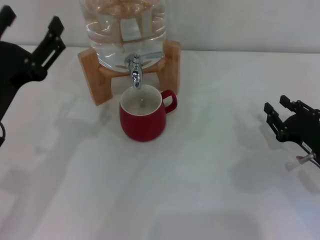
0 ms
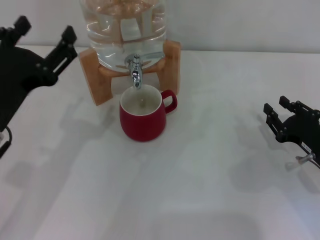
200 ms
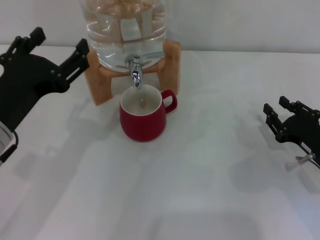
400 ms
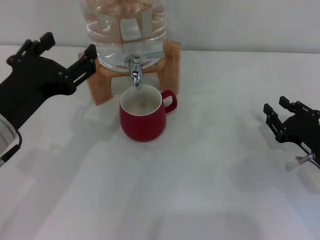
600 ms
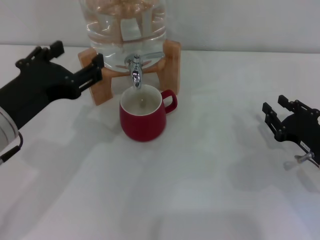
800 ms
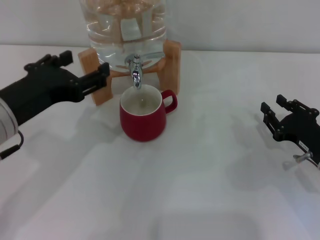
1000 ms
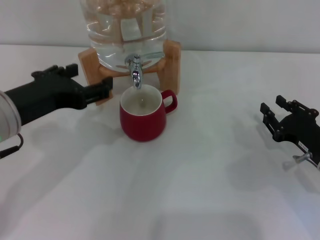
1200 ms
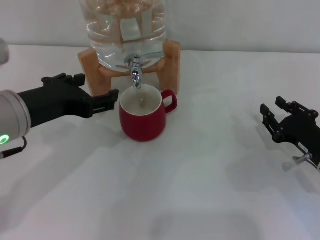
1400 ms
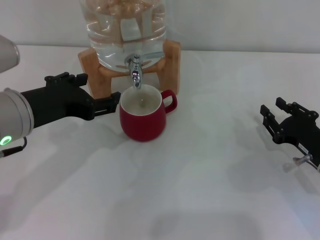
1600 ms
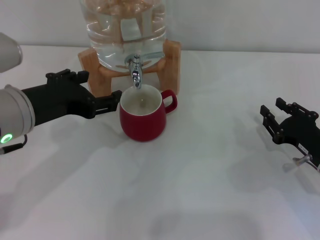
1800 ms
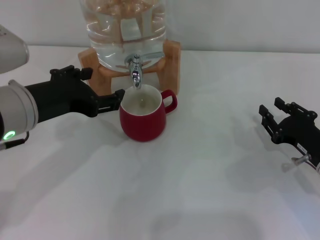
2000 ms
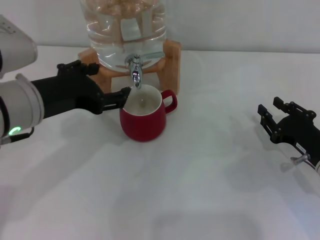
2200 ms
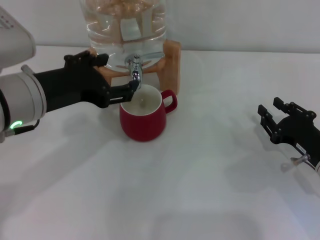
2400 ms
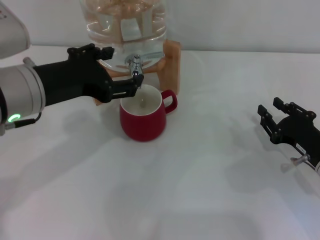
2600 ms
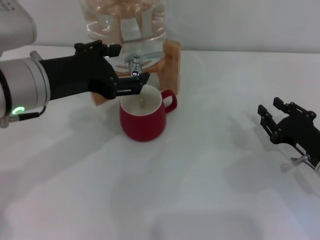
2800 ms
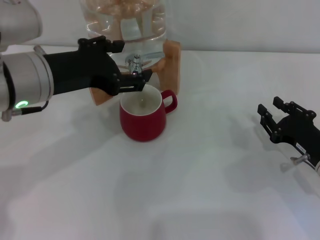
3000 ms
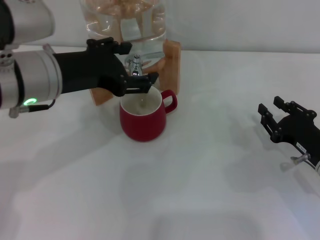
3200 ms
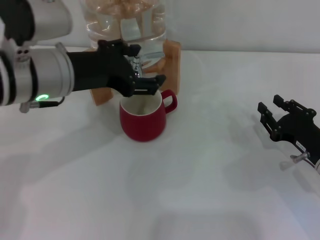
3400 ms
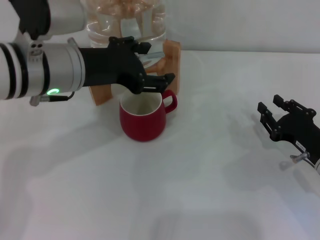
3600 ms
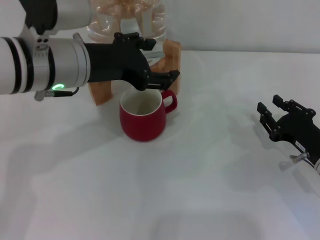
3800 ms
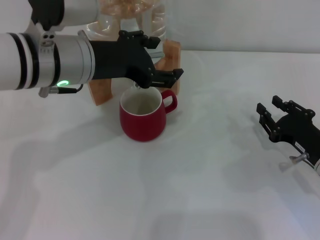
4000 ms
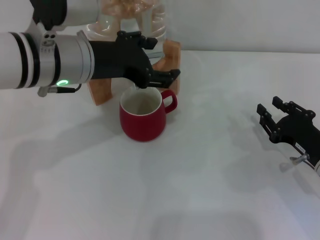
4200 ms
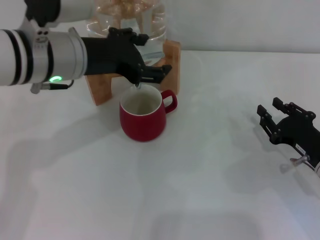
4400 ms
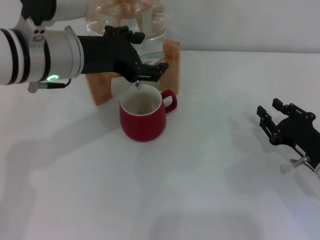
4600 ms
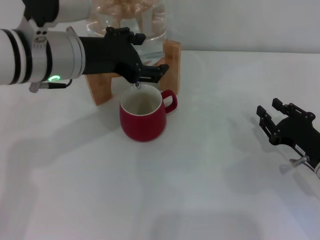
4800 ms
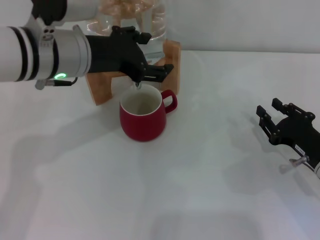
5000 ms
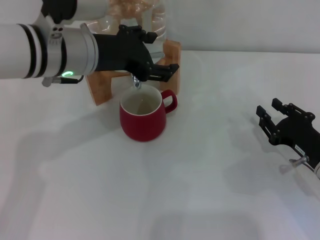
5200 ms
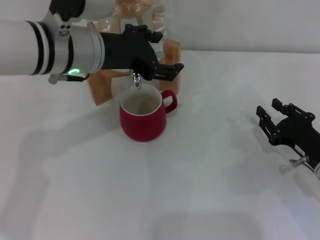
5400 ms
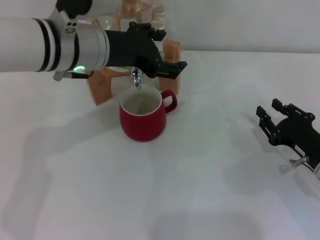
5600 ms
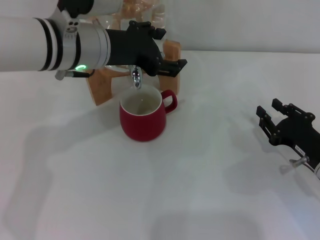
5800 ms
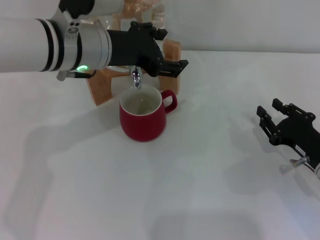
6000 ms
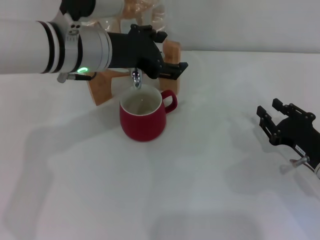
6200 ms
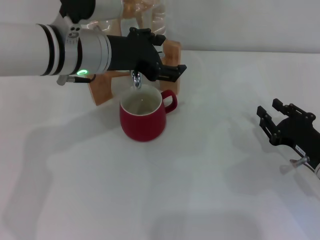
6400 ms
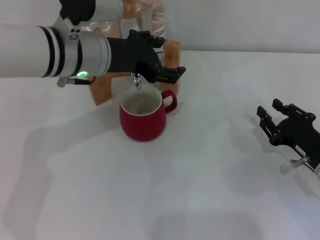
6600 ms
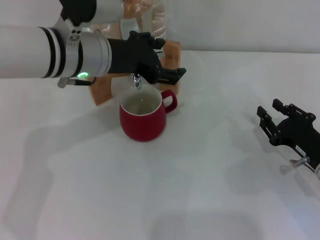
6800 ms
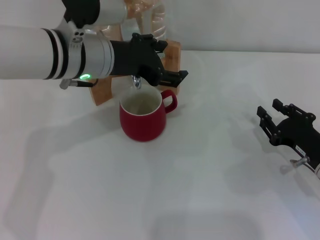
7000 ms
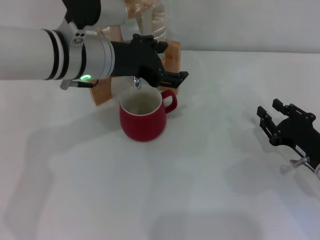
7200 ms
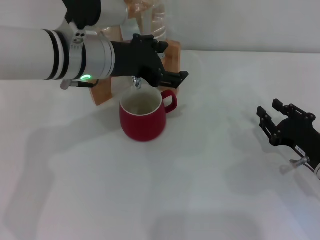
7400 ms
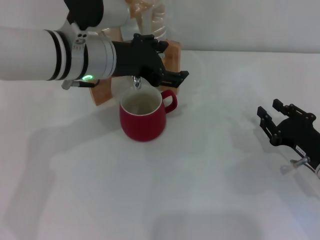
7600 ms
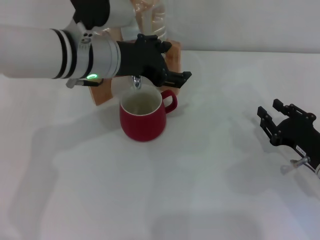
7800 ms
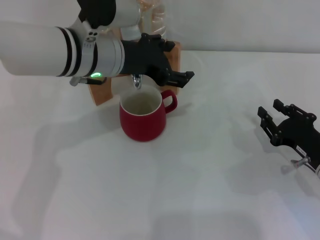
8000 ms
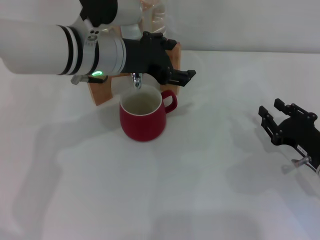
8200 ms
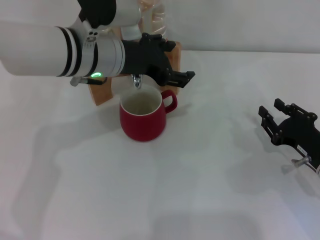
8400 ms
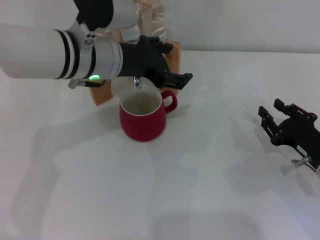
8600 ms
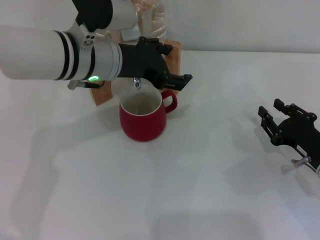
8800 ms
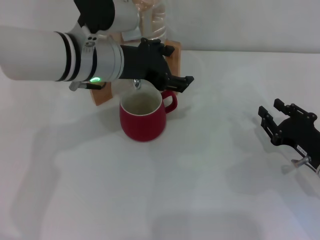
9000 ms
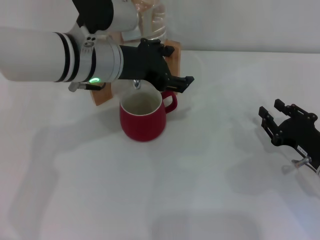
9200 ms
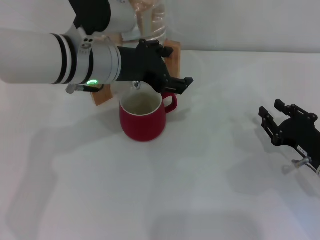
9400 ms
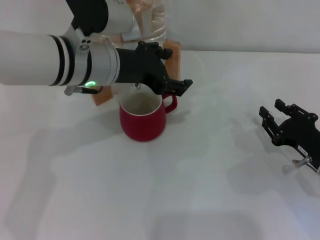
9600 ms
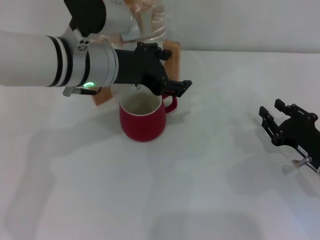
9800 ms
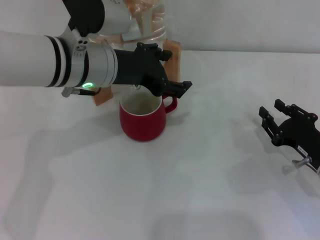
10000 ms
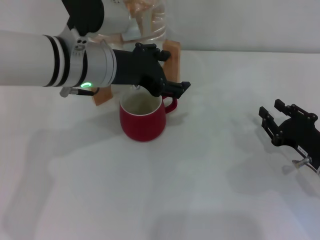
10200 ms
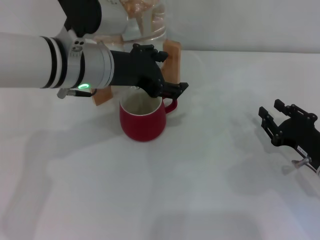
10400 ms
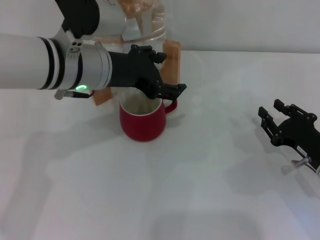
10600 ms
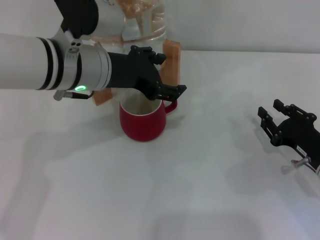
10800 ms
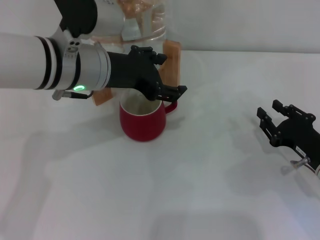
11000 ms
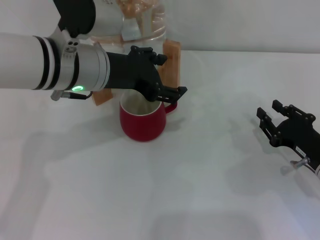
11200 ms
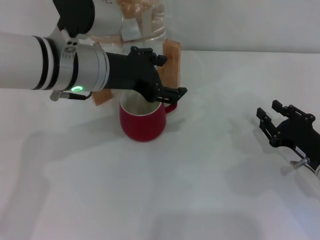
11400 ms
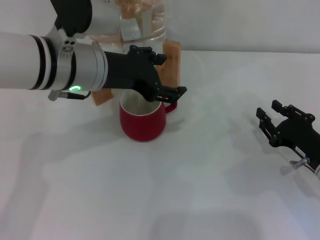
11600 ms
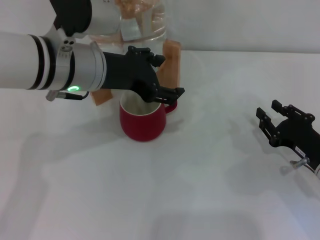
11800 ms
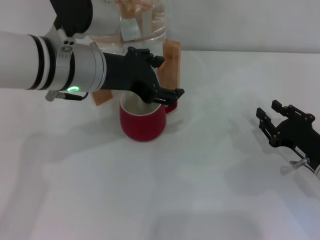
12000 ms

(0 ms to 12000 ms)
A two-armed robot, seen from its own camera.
Task of the whole recording: the right gripper pick up the red cup and place it horizontally under the faucet, the left gripper turn on the faucet to fill the cup, and then turn off the faucet.
0 ms - 1600 ms: The left gripper ends up roughly 5 cm from where it was.
1600 ms - 3000 ms: There are only small adjustments of the grippers.
3000 ms - 4400 ms: The left gripper ends up about 5 cm from where it was.
4400 ms - 7600 ms: There are only small adjustments of the grippers.
7600 ms - 9000 ms: Both grippers stay put.
9000 ms - 12000 ms: The grippers stay close to where they were, moving slightly.

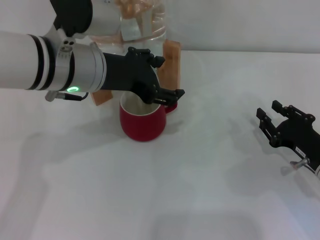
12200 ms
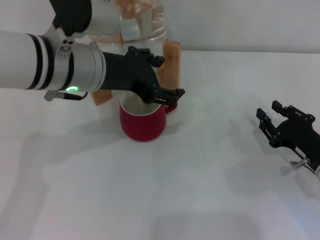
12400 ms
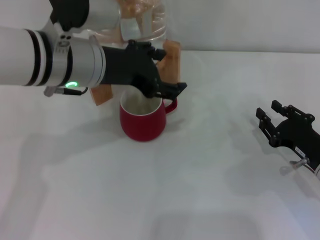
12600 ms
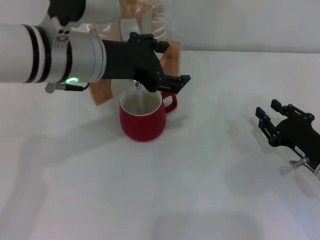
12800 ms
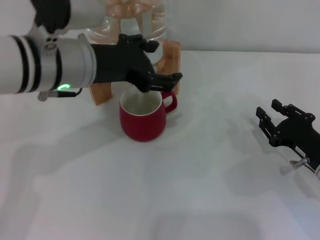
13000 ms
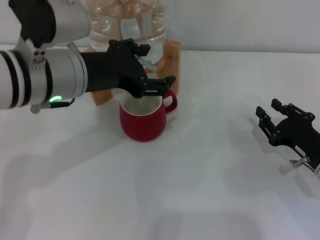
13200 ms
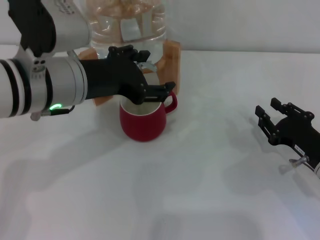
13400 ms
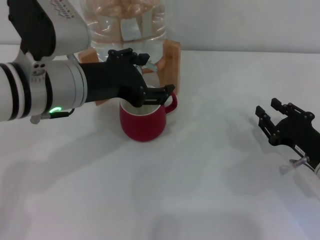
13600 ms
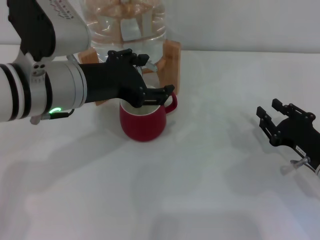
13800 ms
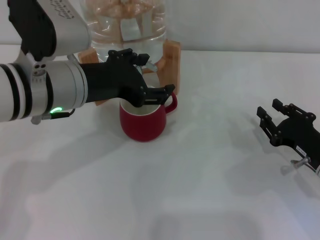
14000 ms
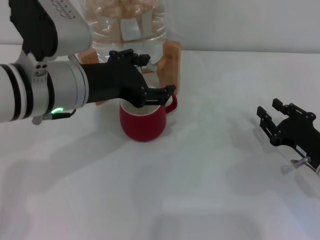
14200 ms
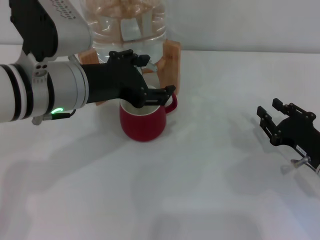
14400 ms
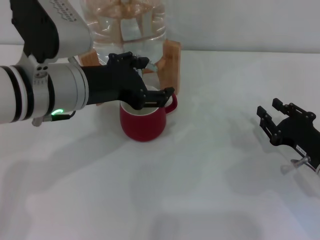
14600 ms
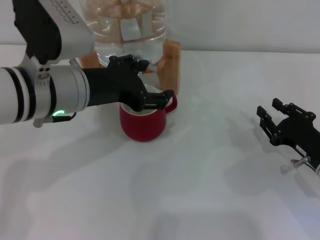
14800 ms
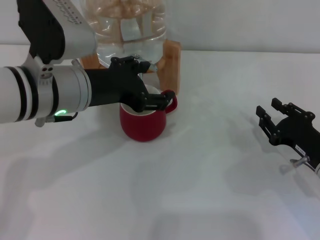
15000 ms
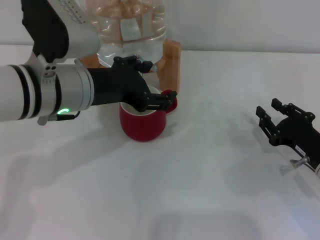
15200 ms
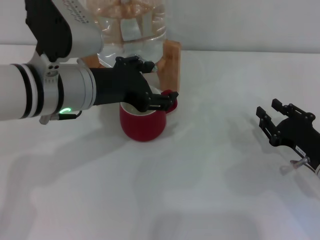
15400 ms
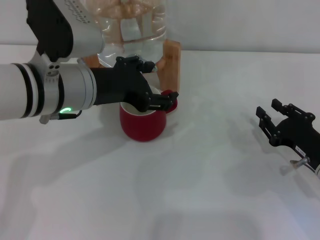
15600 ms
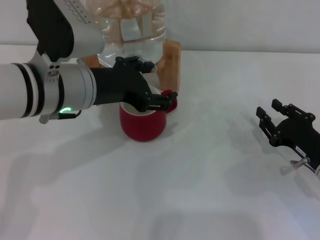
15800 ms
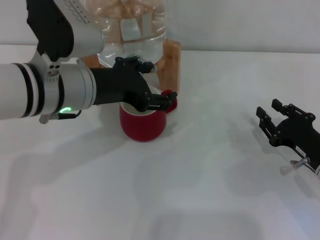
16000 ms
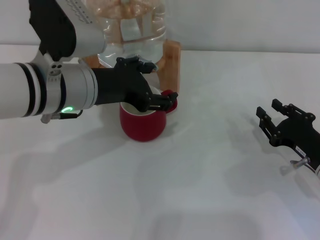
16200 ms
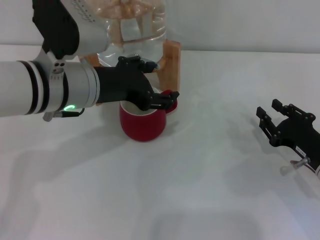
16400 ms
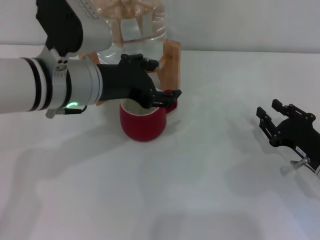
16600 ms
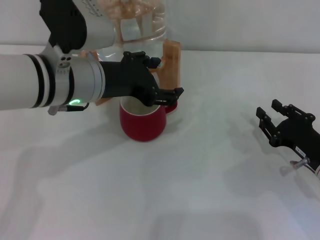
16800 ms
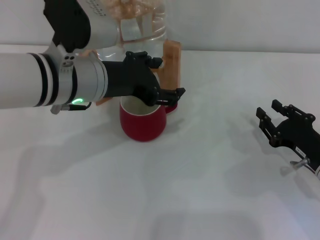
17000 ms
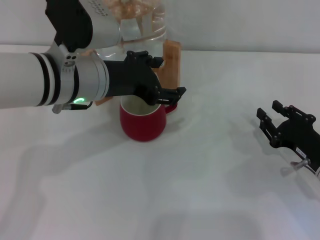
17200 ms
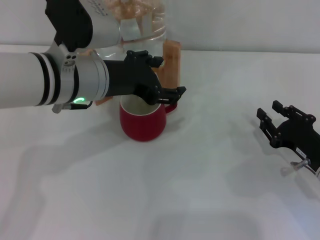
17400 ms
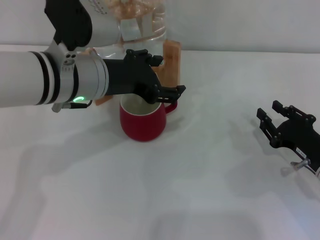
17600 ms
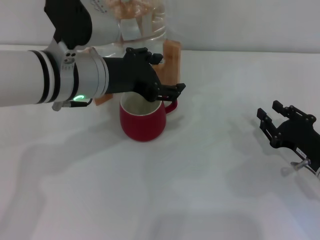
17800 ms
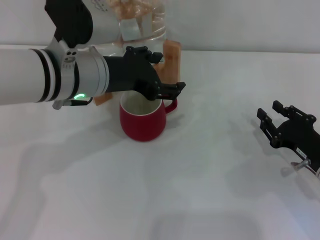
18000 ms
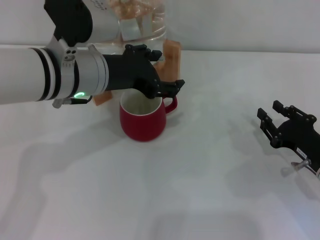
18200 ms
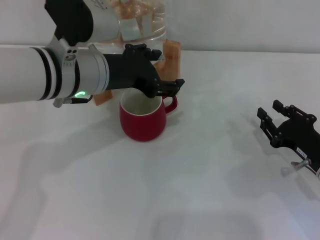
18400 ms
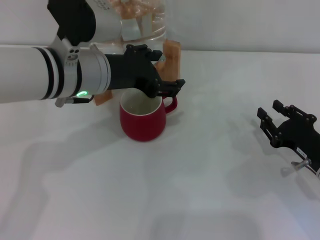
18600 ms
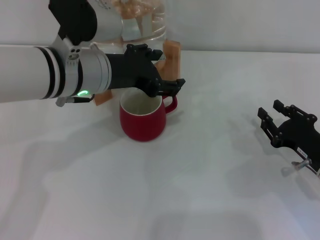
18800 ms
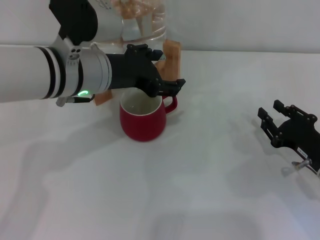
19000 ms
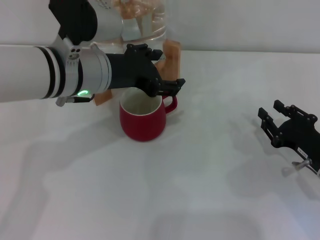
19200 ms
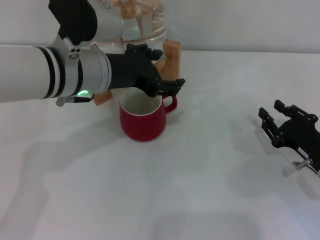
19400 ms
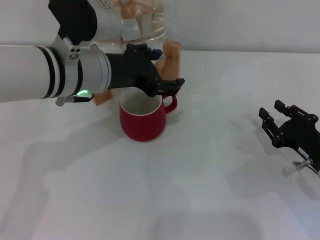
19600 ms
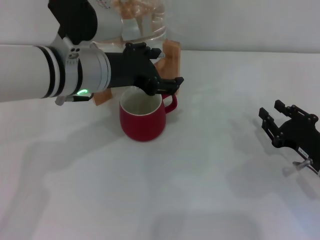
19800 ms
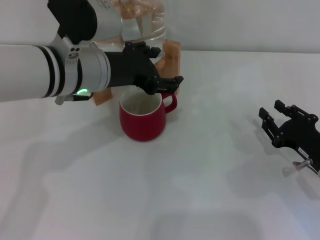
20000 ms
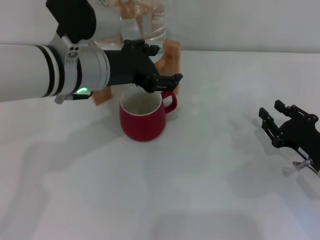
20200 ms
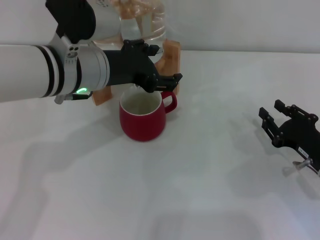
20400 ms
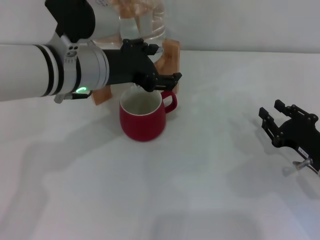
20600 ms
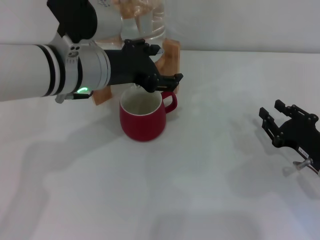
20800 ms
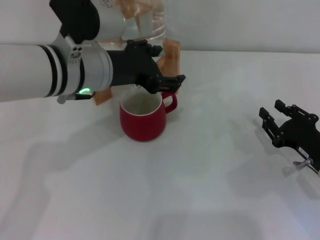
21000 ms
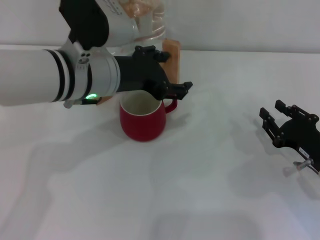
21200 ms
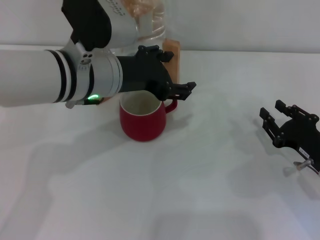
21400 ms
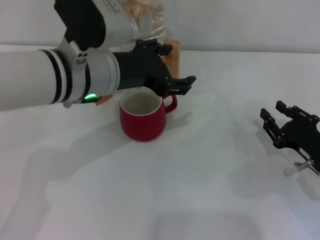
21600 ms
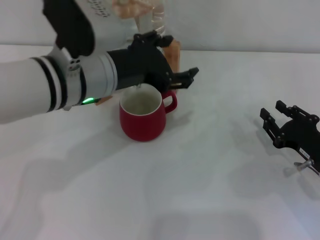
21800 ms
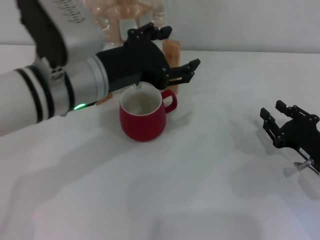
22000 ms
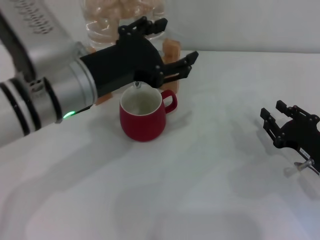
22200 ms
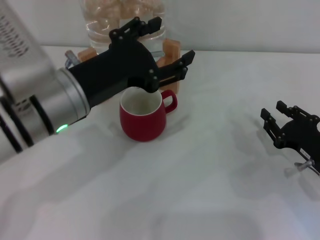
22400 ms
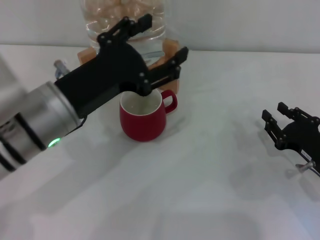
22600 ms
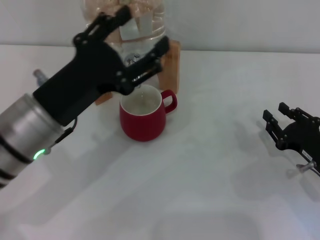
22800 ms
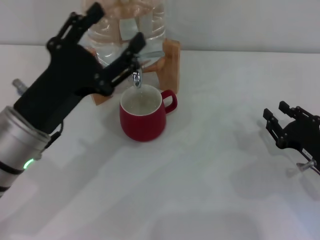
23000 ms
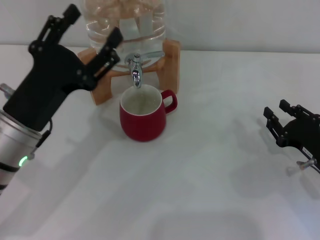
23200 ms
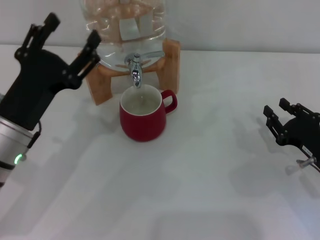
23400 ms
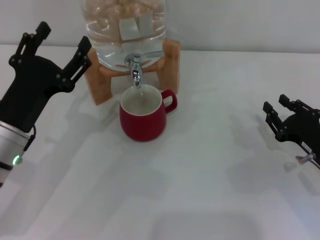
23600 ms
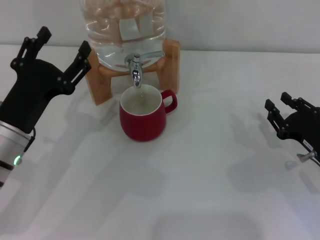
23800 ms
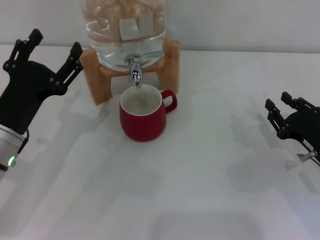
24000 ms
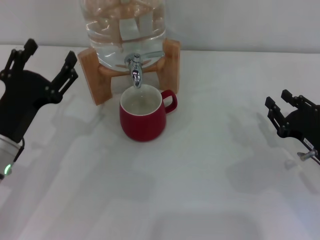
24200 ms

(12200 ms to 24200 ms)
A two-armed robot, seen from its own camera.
Task of the whole recording: the right gripper pick up the red cup and place it horizontally under the faucet, the left gripper turn on the faucet to fill the cup, and then turn off the faucet.
Step, 13600 ms - 21800 ms: Close the dispenser valve with the left gripper.
12200 ms - 13800 ms: There are only small adjustments of the grippers.
13800 ms - 15200 ms: The two grippers keep their place.
15200 ms - 16600 ms: Both grippers stay about where they are.
16600 ms - 18200 ms: The two grippers keep their place.
18200 ms - 21200 ms: Neither gripper changes place.
21200 ms - 22600 ms: The left gripper travels backward by roughly 10 cm.
22600 ms - 24200 ms: The left gripper is displaced downward and to the left by some 10 cm.
